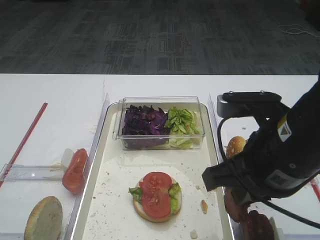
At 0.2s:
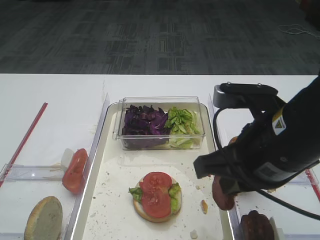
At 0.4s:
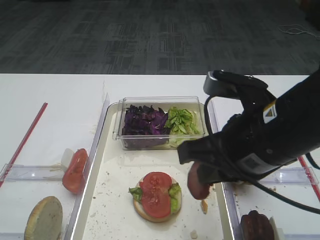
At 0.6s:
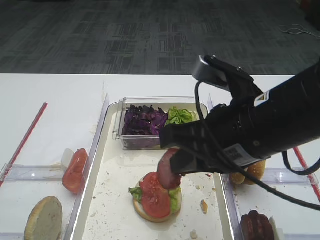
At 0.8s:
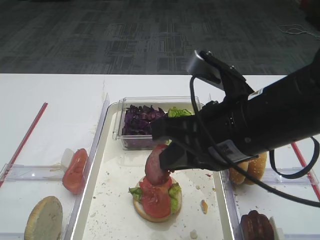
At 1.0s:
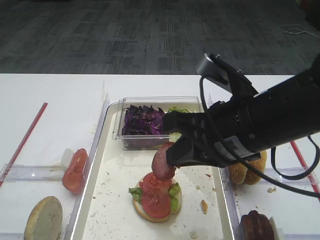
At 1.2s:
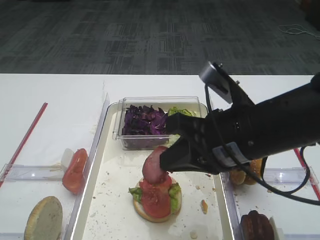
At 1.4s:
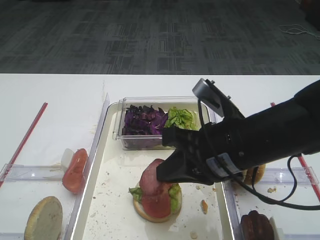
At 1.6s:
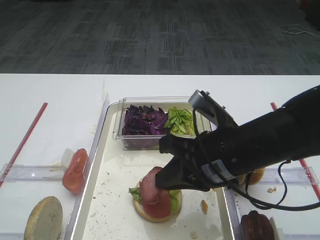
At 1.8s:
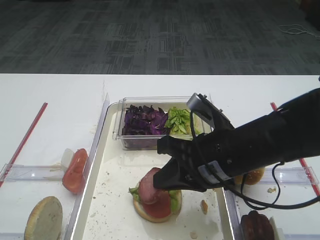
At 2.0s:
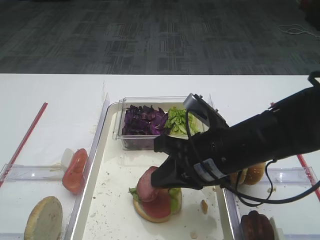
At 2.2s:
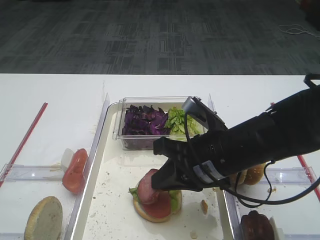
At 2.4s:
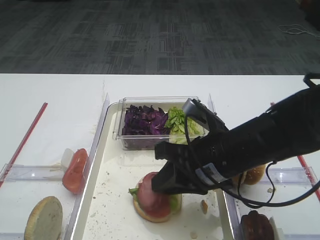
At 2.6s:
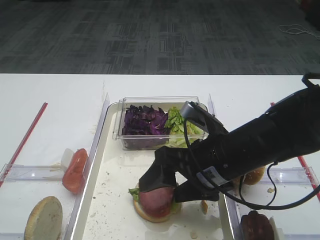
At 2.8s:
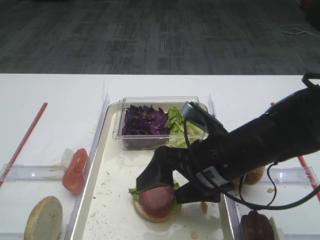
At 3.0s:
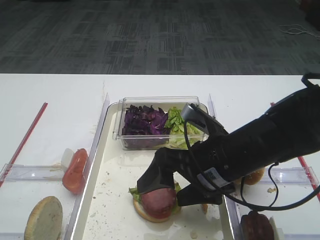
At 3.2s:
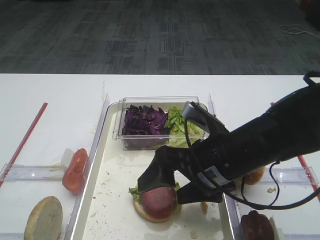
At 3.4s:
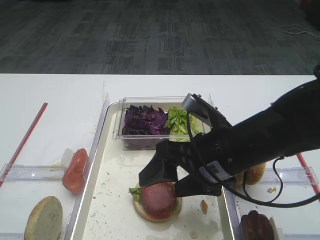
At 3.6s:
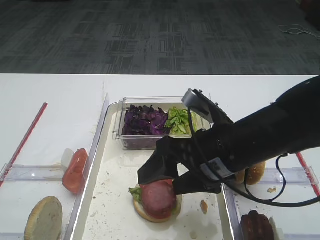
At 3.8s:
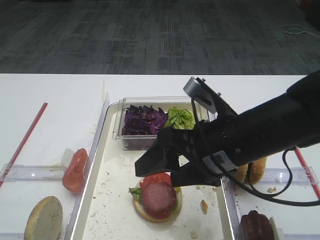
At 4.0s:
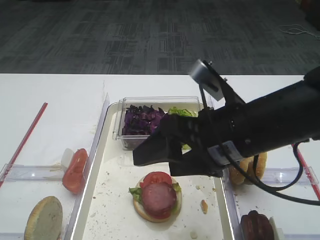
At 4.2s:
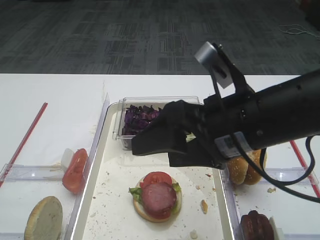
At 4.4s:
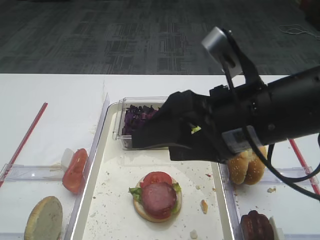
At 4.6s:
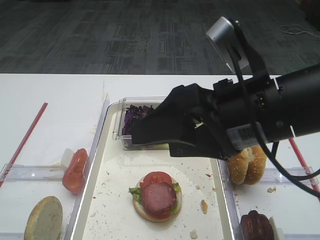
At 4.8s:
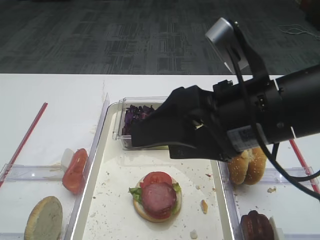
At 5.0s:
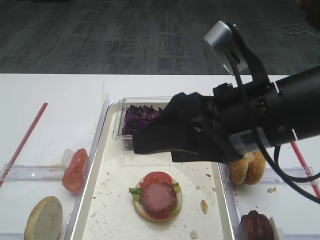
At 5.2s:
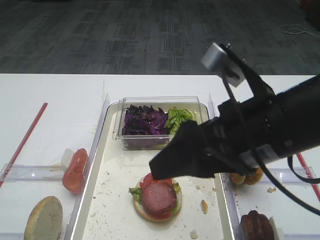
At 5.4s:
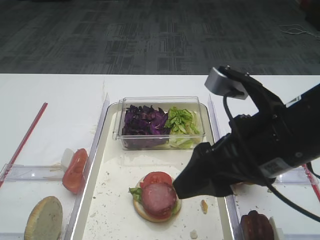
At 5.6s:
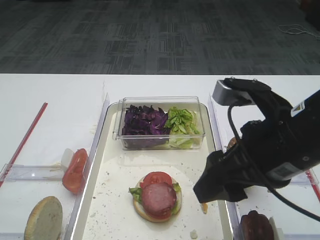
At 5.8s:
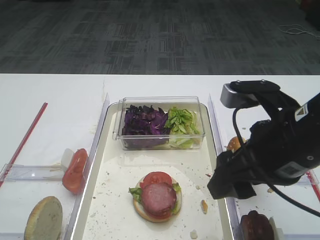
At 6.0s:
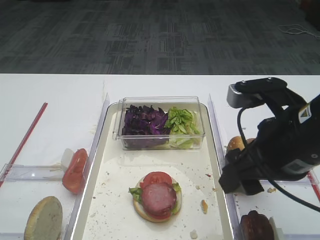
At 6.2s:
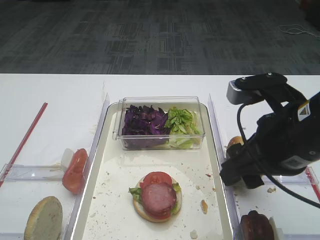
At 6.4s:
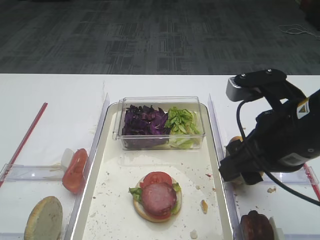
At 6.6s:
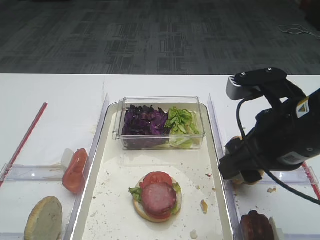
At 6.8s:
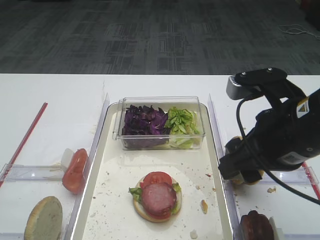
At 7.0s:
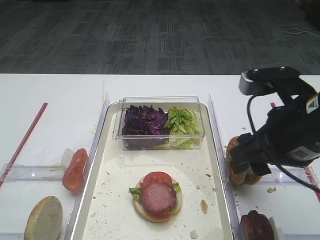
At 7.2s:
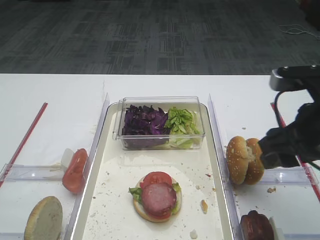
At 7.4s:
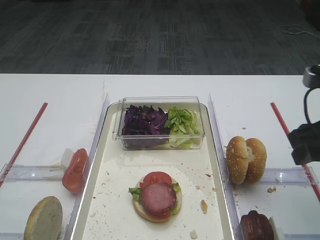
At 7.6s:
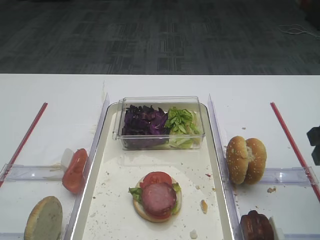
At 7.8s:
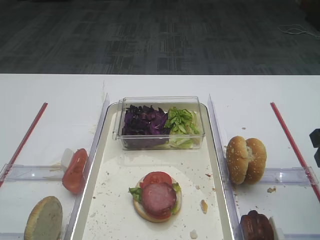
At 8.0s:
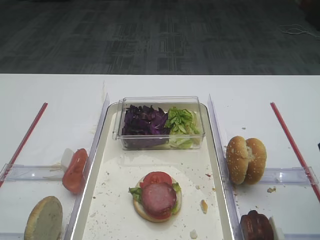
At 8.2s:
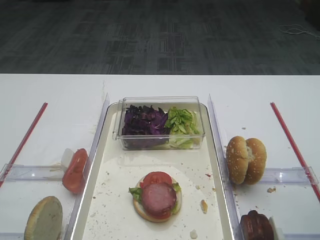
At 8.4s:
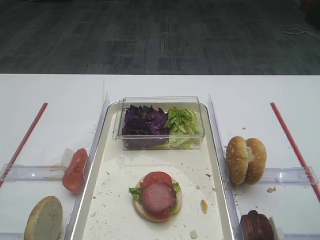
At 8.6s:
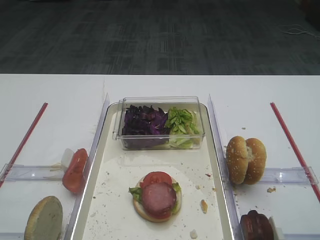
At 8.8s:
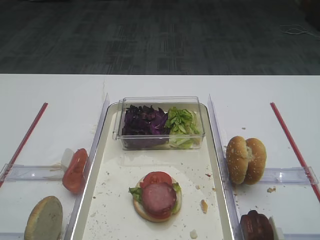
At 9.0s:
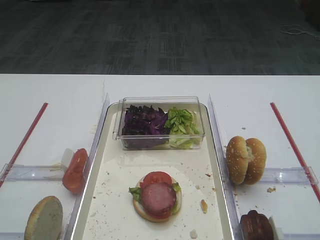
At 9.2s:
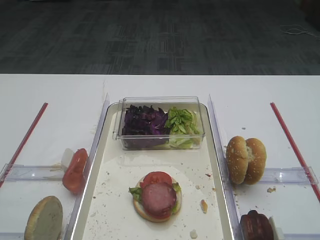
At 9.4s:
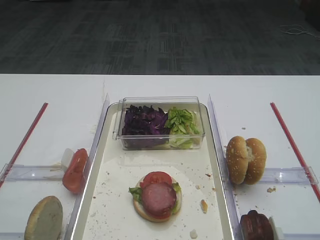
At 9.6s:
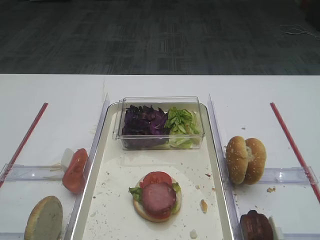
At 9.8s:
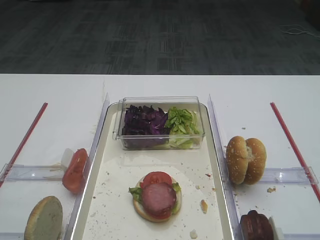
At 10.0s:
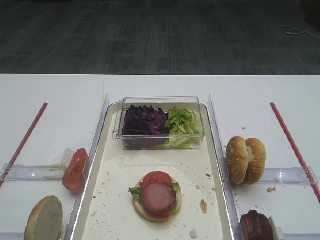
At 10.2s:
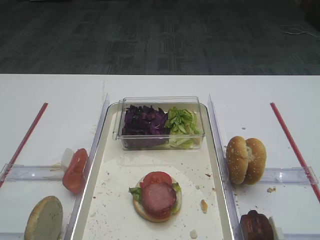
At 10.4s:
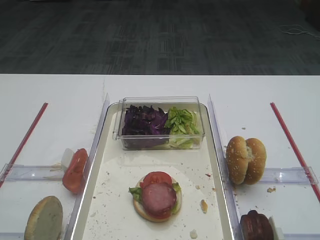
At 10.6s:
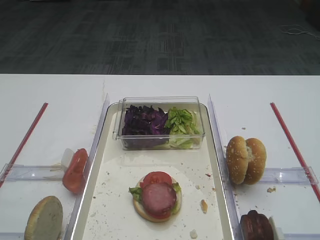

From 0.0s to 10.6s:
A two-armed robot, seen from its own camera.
Step, from 0.0s to 3.8s: Place the cutlet on the tomato slice with the right gripper.
From 0.0s to 1.6s: The right gripper ends up roughly 5 cm from where it was.
From 1.6s to 3.0s: The right gripper opens up.
From 3.0s to 4.6s: The right gripper is displaced upward by about 10 cm.
From 4.6s to 6.0s: The right gripper changes place by approximately 5 cm.
From 6.0s to 7.6s: The right gripper shifts about 10 cm to the right.
From 7.6s to 9.0s: The right gripper heads backward, covering some 15 cm.

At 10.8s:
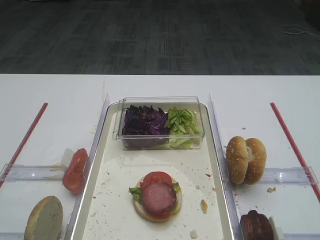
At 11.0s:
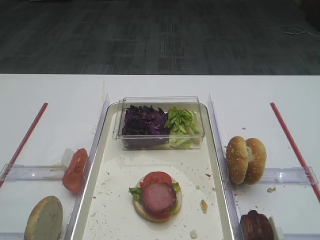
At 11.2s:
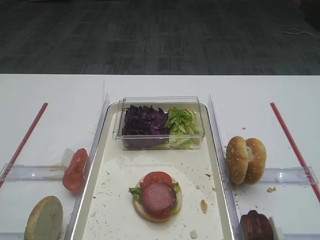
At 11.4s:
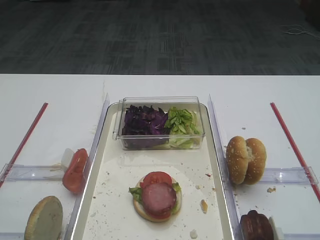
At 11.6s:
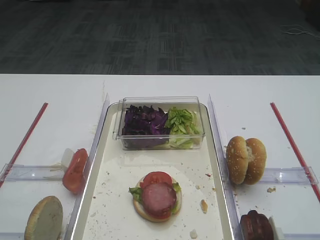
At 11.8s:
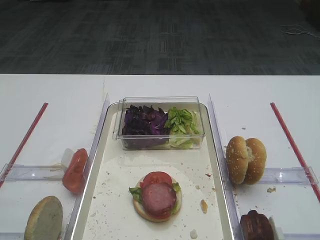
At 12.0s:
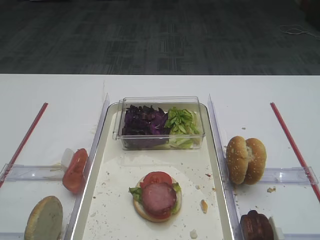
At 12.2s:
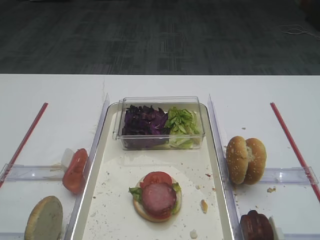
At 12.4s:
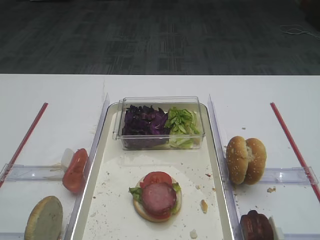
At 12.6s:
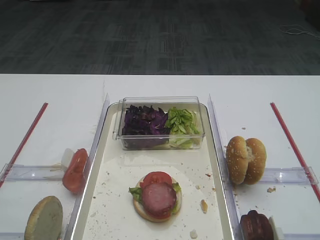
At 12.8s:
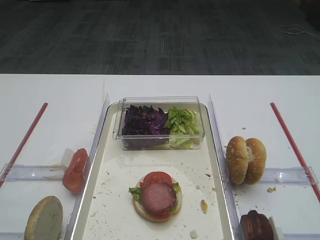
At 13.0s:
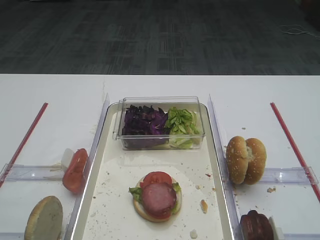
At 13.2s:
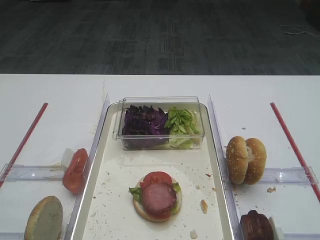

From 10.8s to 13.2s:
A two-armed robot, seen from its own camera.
From 10.8s to 13.2s: Neither gripper changes place.

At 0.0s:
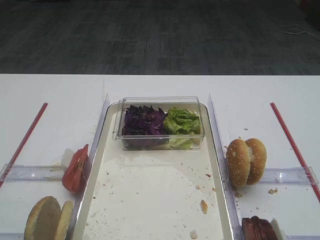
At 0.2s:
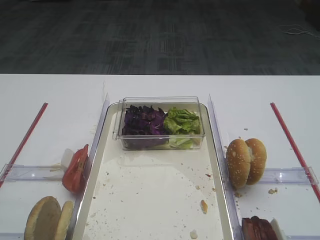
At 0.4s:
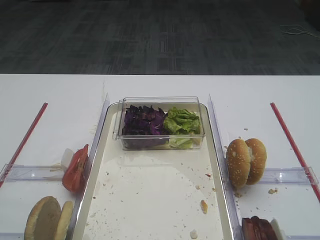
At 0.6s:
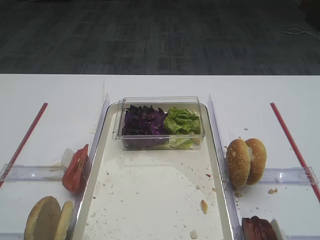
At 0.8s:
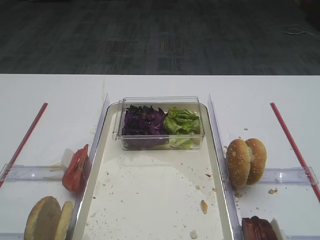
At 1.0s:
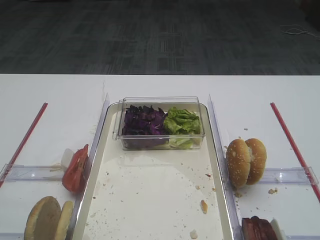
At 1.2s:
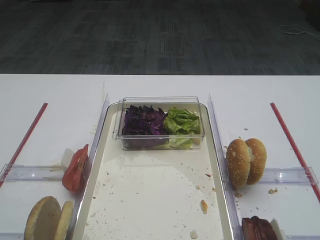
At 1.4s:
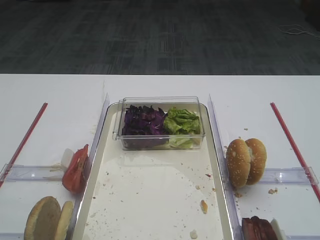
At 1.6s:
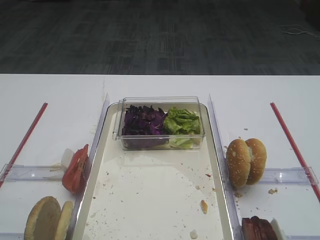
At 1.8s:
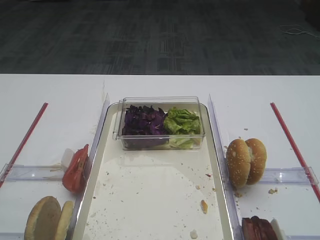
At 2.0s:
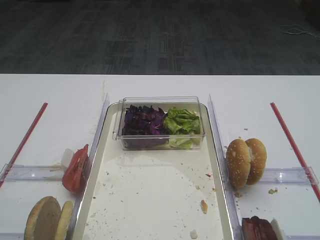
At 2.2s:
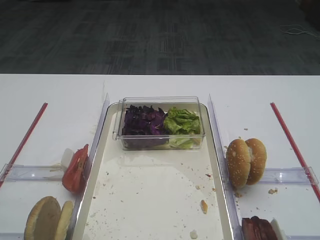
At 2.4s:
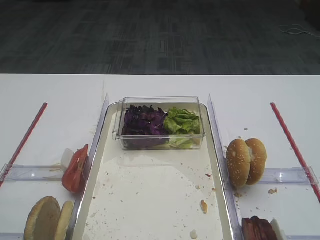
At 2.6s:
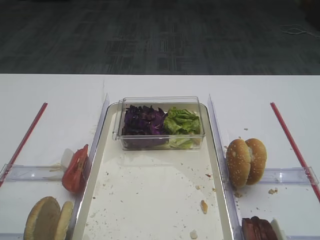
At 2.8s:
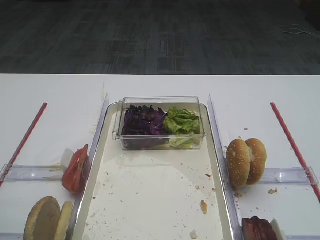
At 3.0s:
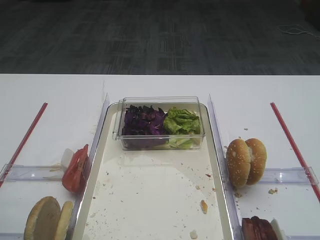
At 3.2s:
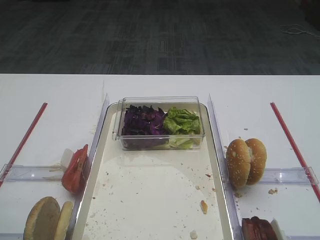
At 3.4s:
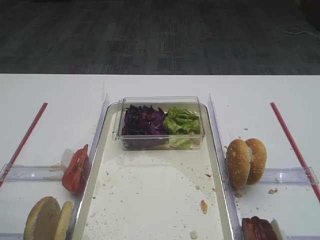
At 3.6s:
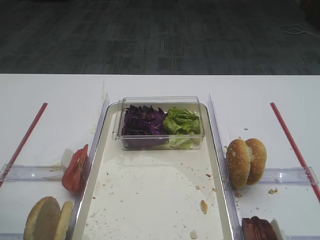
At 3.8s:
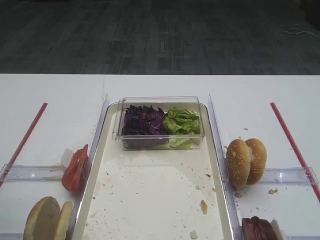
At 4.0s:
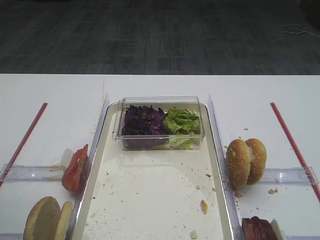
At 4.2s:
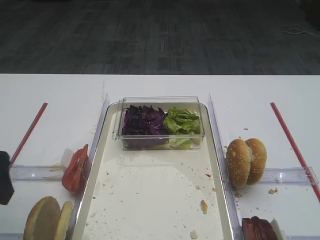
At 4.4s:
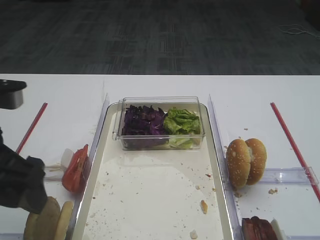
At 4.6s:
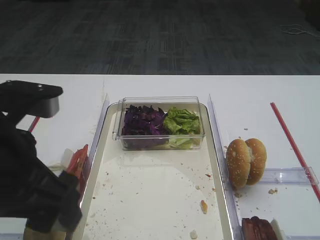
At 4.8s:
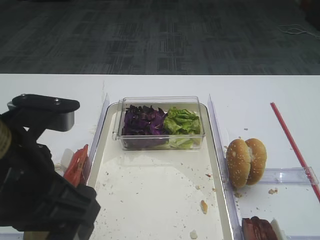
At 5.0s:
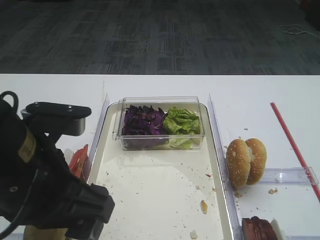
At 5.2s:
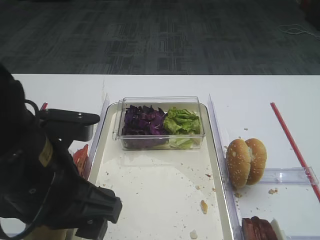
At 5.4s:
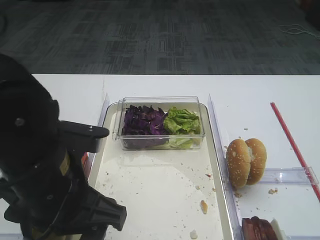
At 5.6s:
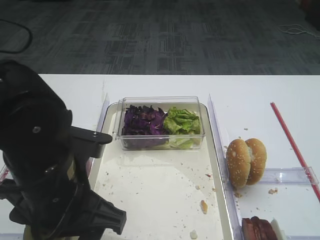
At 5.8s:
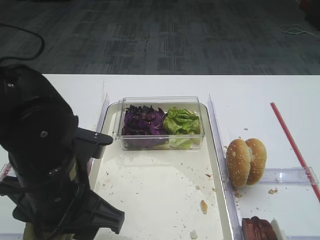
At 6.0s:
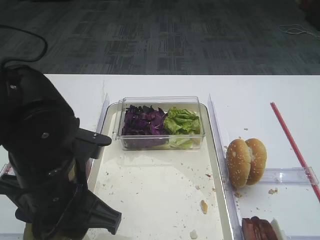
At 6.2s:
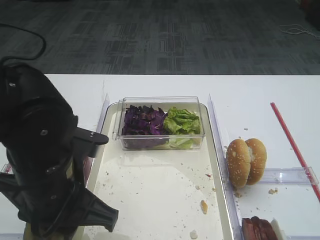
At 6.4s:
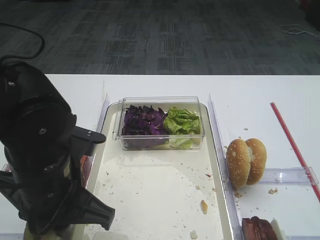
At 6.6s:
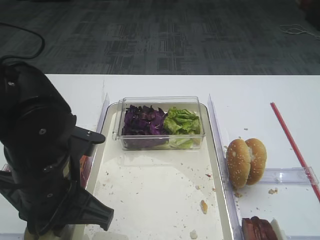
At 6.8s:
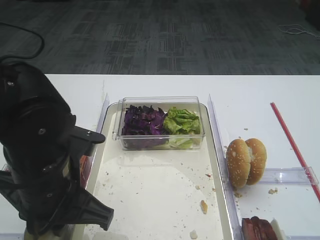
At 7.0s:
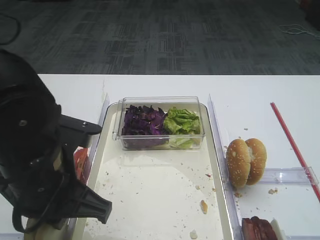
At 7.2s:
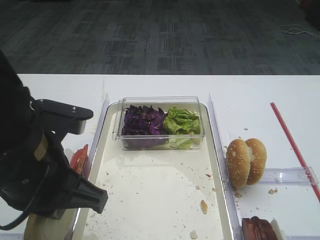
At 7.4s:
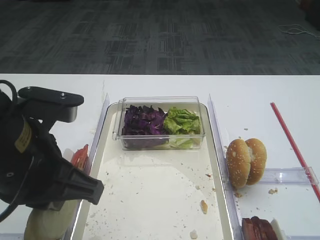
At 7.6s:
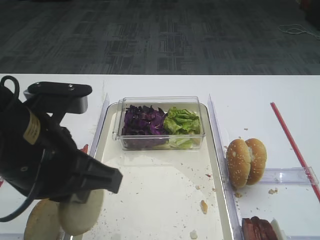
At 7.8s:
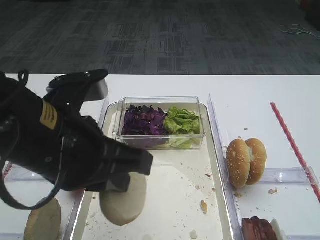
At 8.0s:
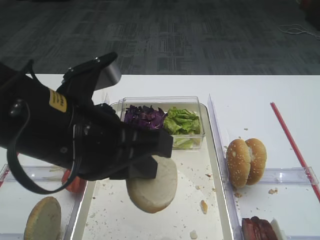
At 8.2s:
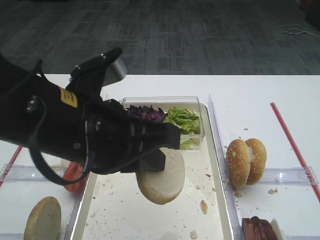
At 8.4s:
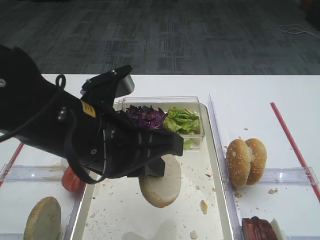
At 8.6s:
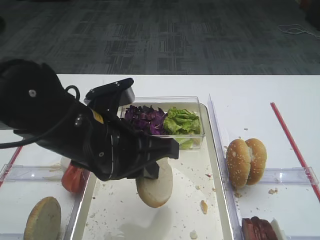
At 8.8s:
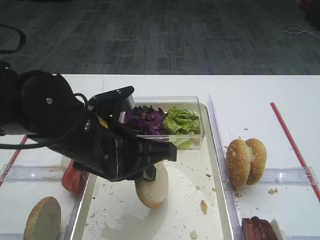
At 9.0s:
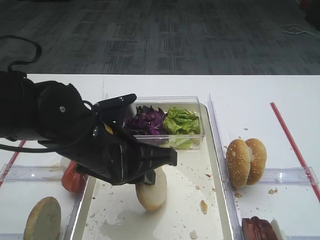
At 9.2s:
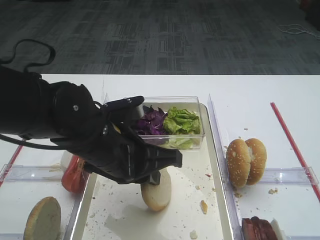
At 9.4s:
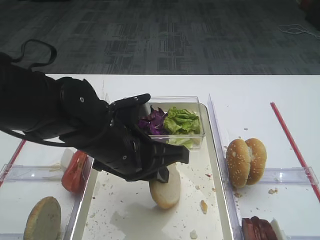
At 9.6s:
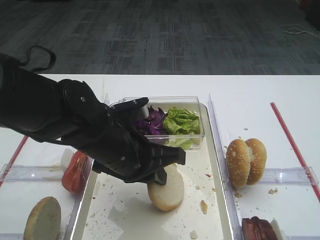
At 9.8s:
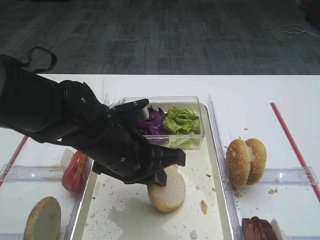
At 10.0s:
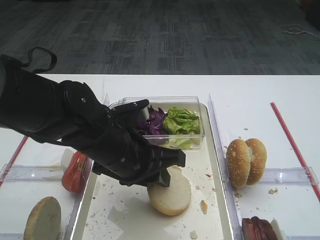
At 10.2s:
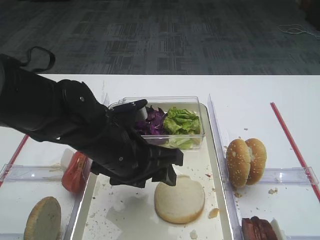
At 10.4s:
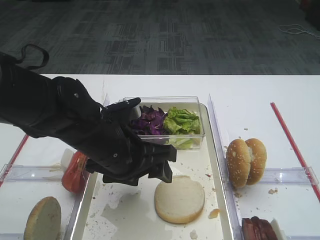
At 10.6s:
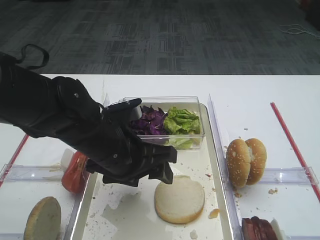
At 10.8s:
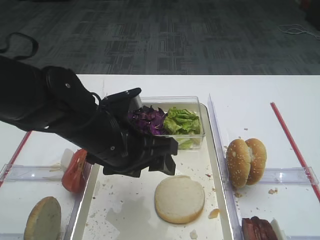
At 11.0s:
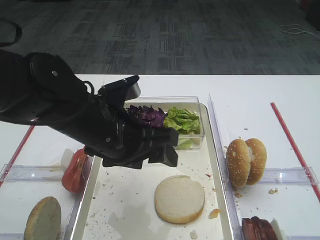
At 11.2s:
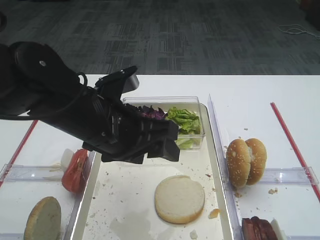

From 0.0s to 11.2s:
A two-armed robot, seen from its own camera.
Step, from 0.0s to 7.4s: Pick up the bread slice with the left gripper.
Step, from 7.6s to 10.8s: Place the bread slice on the tray with the left gripper.
From 3.2s to 4.8s: The left gripper moves to the right, about 15 cm.
From 4.8s to 6.4s: The left gripper moves downward, some 5 cm, and closes its fingers.
From 6.4s to 8.0s: The left gripper shifts about 10 cm upward.
From 8.0s to 9.6s: The left gripper moves downward and forward, approximately 15 cm.
From 9.6s to 11.2s: The left gripper travels upward by about 5 cm, and opens its fingers.
